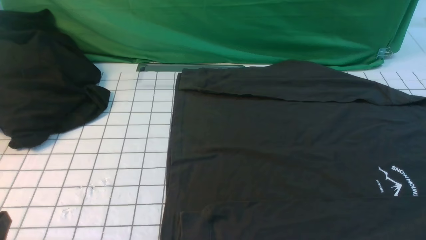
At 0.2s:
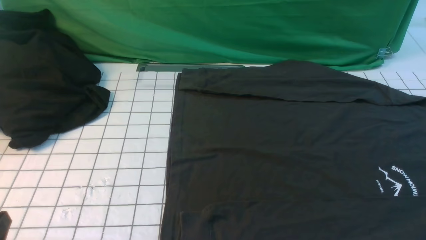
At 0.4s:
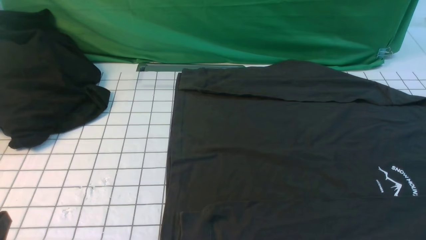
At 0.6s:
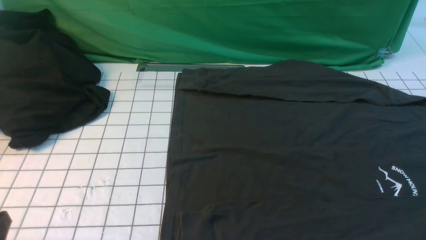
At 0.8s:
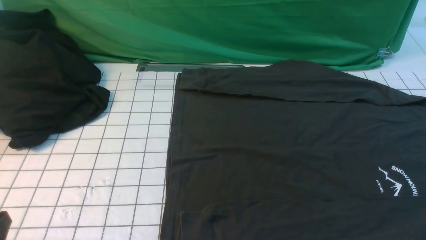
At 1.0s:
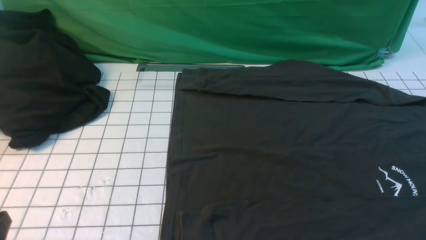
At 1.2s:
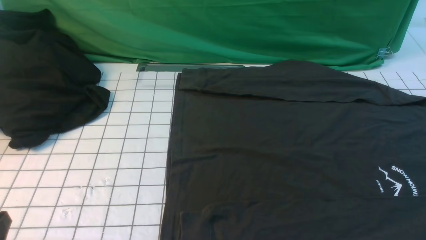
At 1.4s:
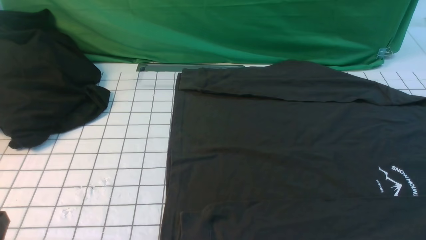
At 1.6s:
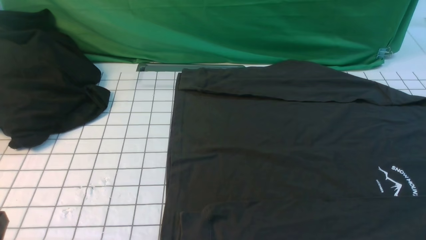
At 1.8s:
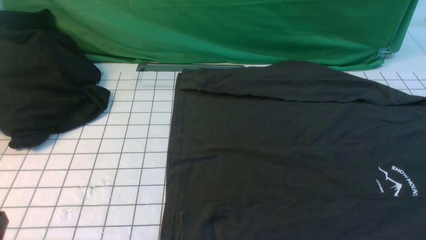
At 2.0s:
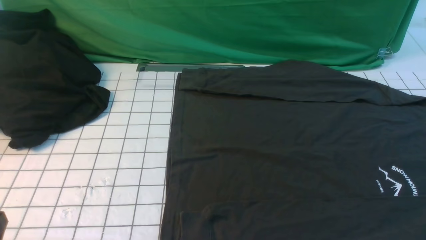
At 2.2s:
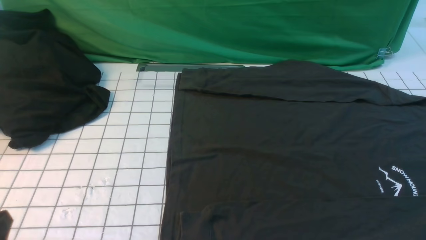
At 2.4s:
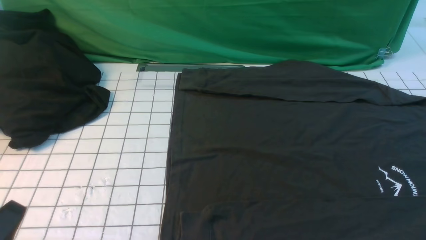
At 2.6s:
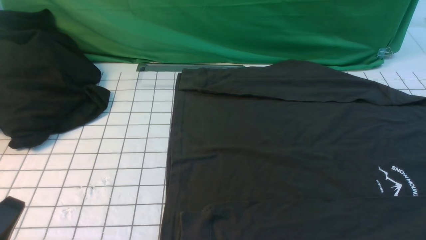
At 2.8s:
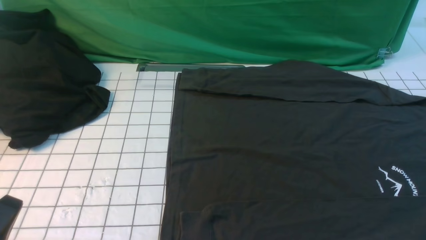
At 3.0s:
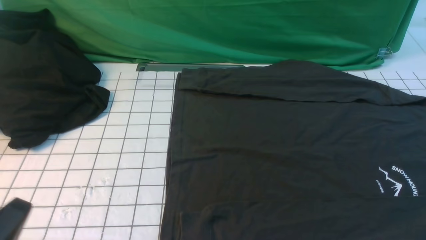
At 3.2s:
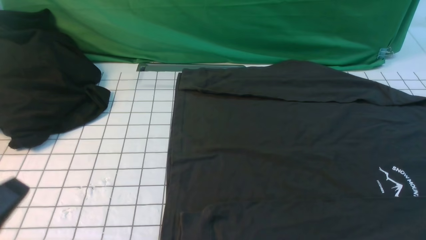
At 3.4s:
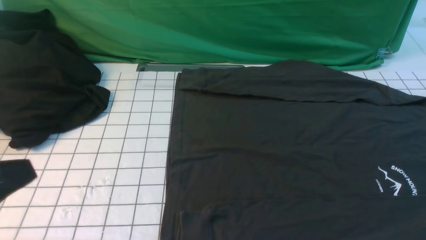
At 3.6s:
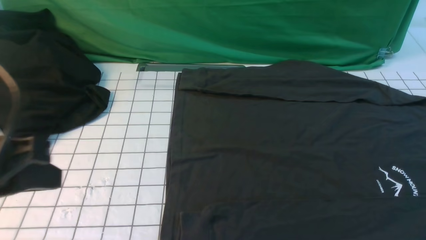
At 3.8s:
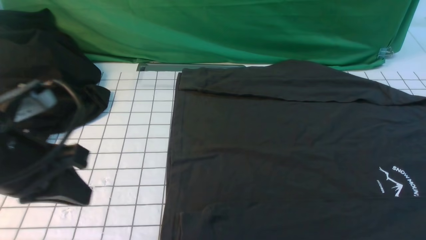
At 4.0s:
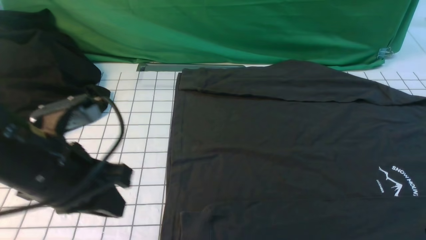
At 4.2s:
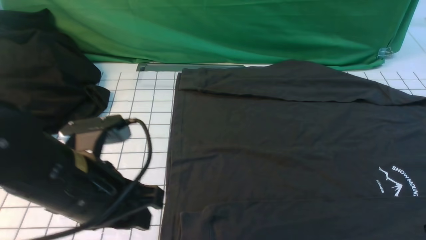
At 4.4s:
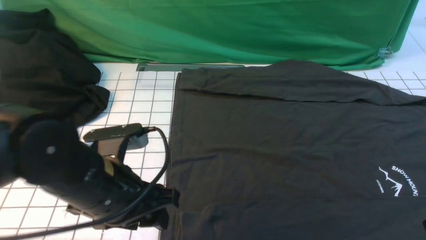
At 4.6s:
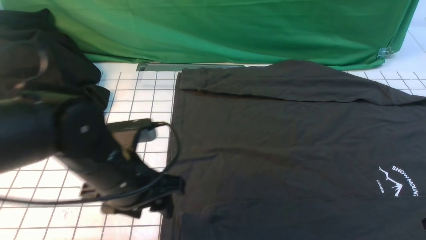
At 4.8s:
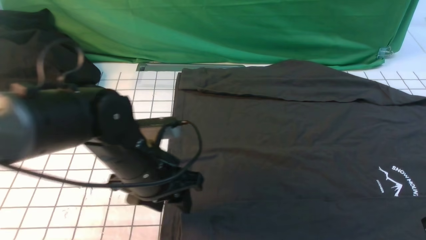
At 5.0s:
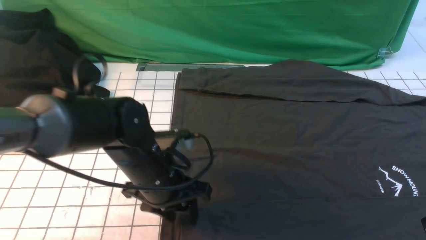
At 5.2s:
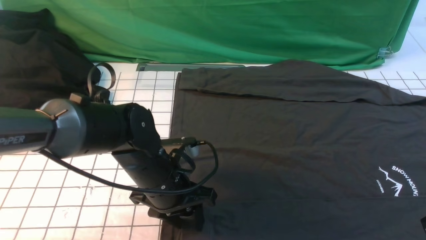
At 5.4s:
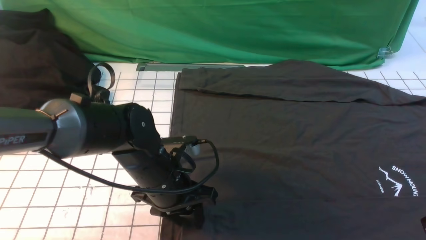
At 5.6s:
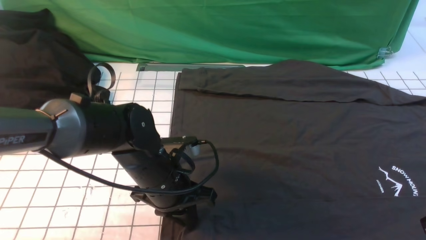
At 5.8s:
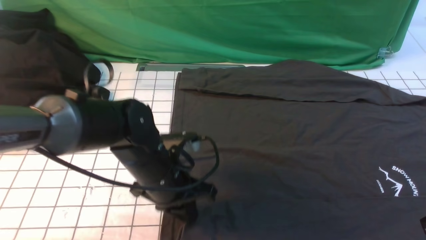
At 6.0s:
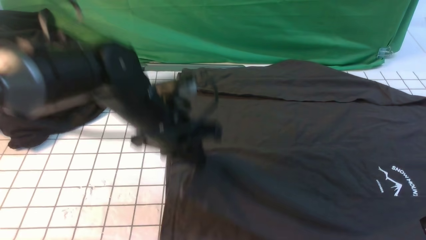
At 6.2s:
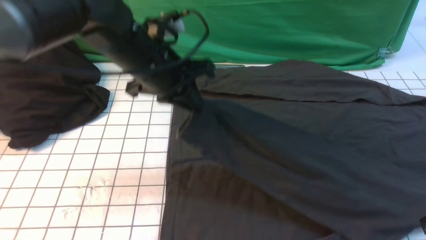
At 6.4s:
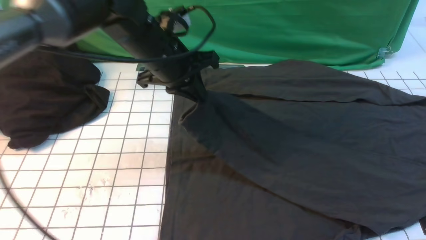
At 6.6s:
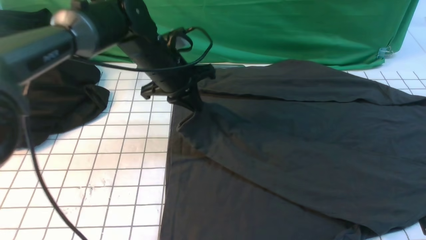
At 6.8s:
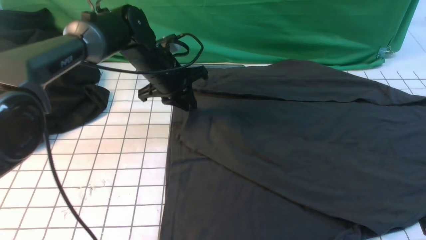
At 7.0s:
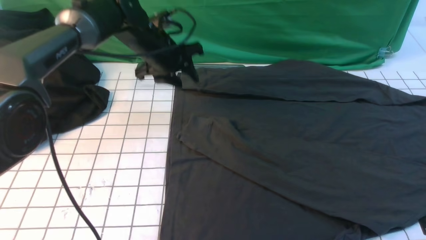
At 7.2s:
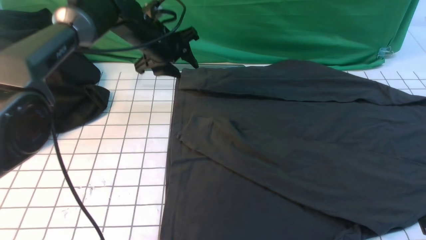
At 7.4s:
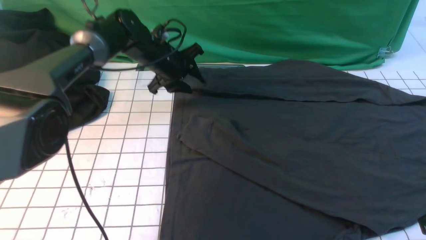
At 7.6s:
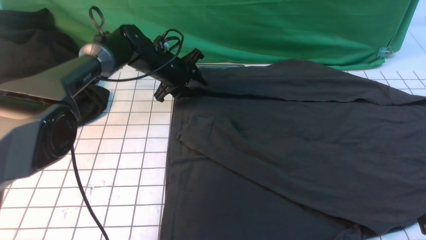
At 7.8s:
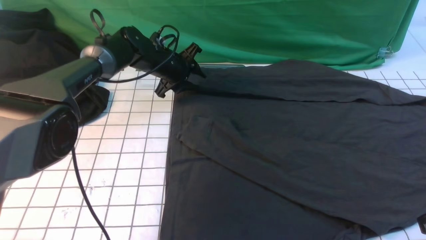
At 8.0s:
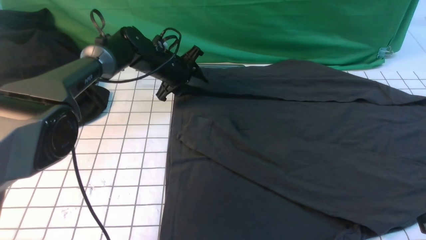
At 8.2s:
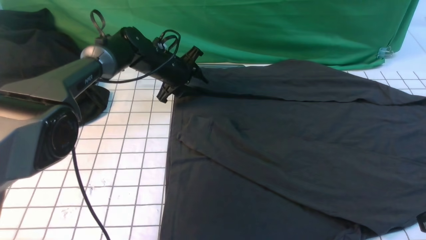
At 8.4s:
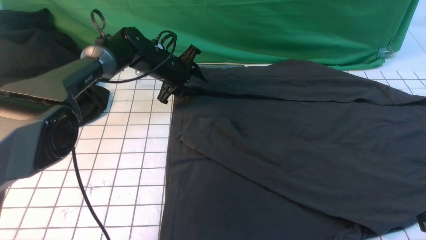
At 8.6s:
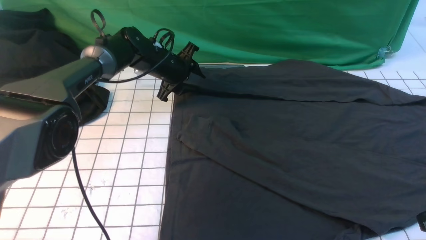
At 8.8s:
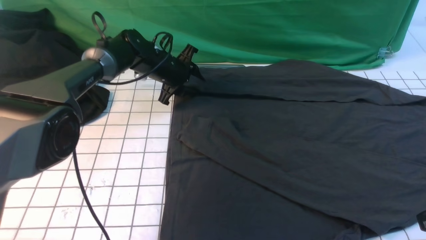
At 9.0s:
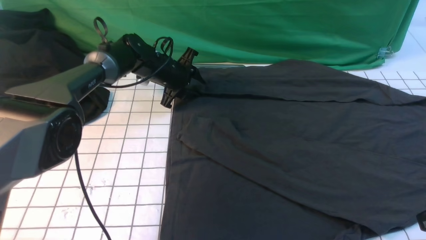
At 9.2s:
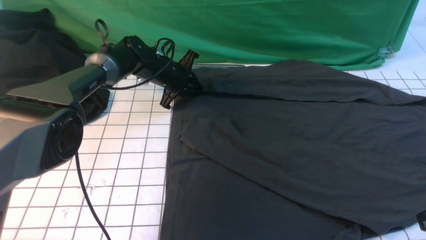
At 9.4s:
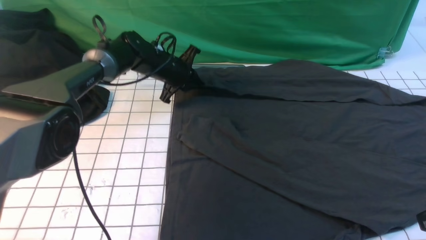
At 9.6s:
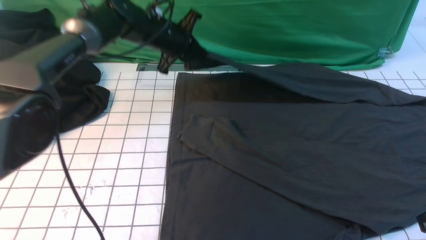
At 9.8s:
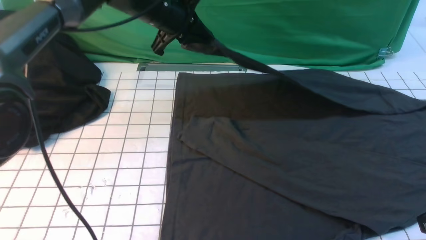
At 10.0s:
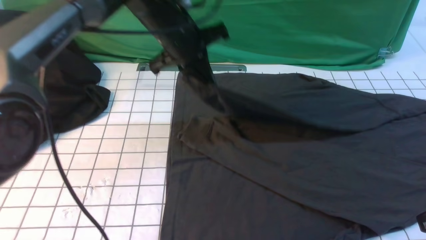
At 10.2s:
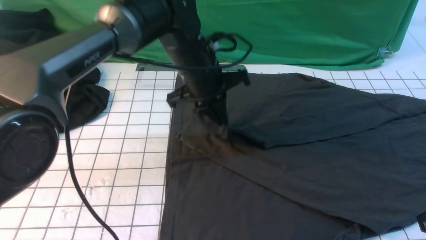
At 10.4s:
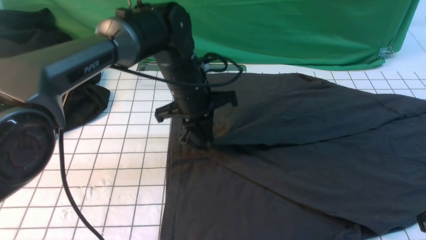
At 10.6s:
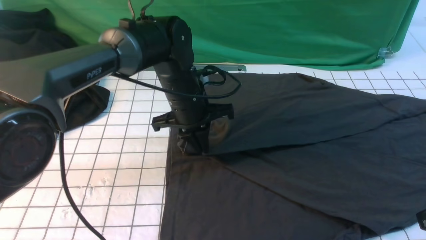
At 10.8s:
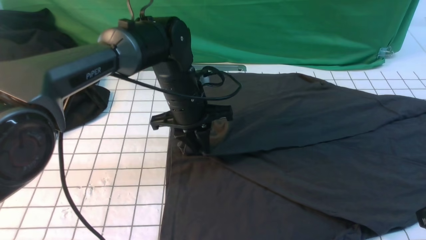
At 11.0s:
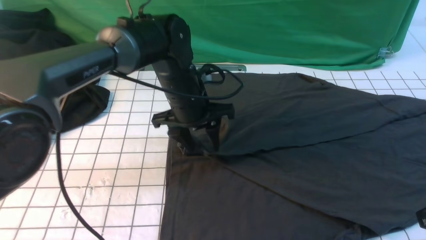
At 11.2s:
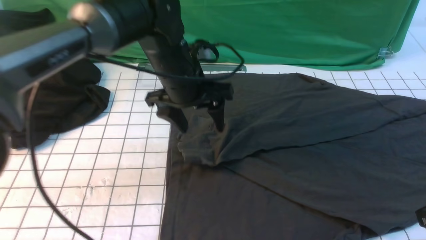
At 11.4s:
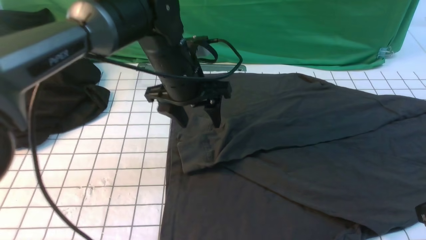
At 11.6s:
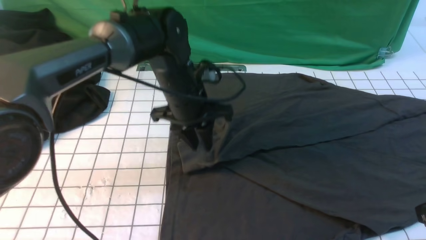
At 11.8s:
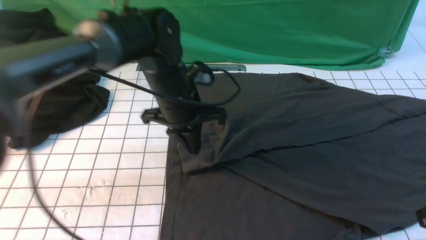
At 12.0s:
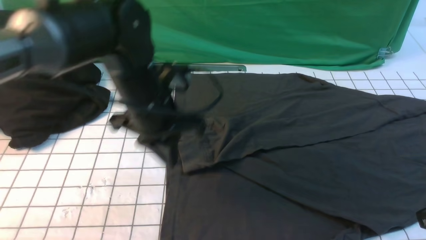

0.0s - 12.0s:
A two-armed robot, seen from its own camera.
Step, 0.0s - 5.6s: use the left arm to clamp the cuff closest to it.
Step, 5.8s - 6.8s: use the left arm to drag and place the cuff at the centered position on the left edge of the fabric.
Step, 7.0s - 9.2s: use the left arm to clamp the cuff farthest from it.
Step, 9.4s - 11.2s: use the left arm to drag and drop the cuff onto the cuff closest to the left arm.
0.0s - 1.6s: Both grippers stay put.
3.0s - 4.4s: The right gripper goes roughly 10 cm forward. The left gripper moves forward and to the right, approximately 20 cm, and opens up.
4.4s - 6.0s: The left gripper moves forward, approximately 10 cm, and closes.
6.0s - 7.6s: The left gripper is displaced forward by approximately 20 cm, and opens its fingers.
7.6s - 9.0s: The grippers stay close to where they were, moving slightly.
9.0s - 10.4s: The left gripper shifts some 15 cm backward, upward and to the right, and closes up.
10.4s - 12.0s: The left gripper travels backward by about 10 cm, and opens, then closes again.

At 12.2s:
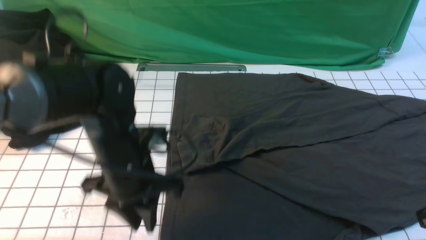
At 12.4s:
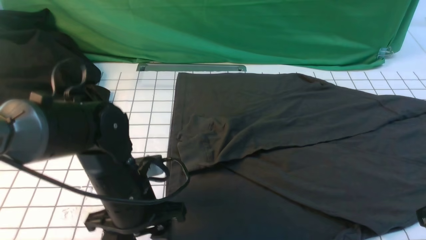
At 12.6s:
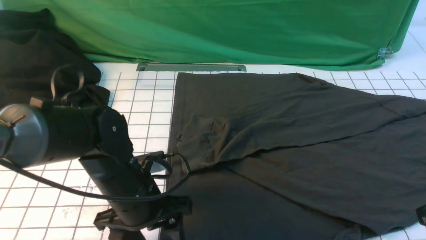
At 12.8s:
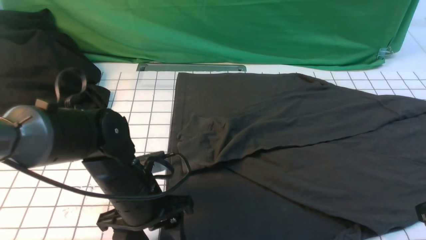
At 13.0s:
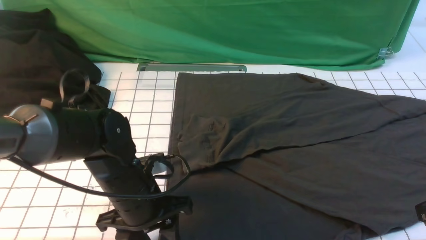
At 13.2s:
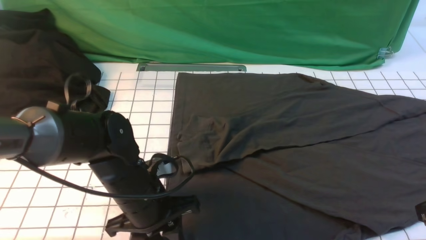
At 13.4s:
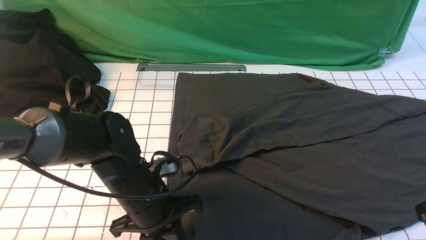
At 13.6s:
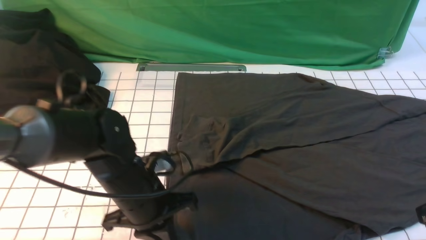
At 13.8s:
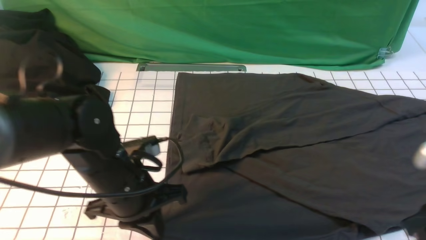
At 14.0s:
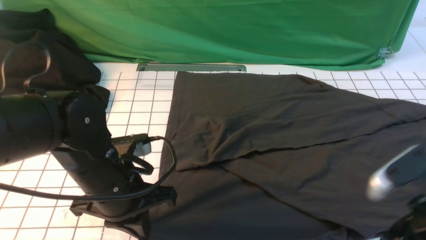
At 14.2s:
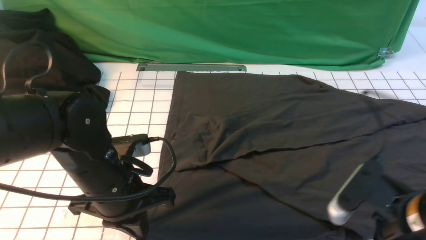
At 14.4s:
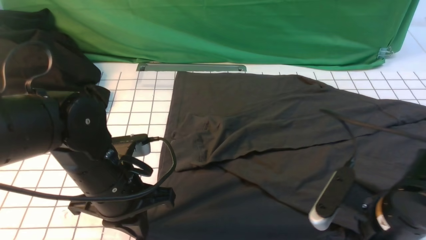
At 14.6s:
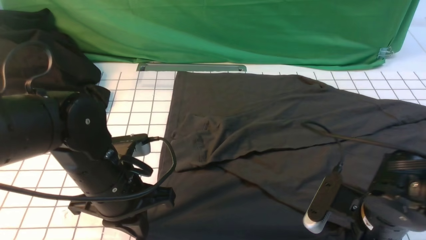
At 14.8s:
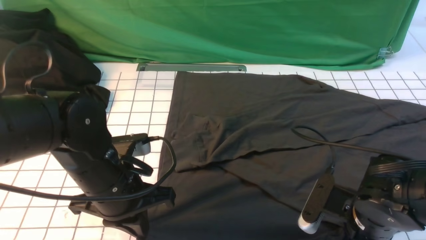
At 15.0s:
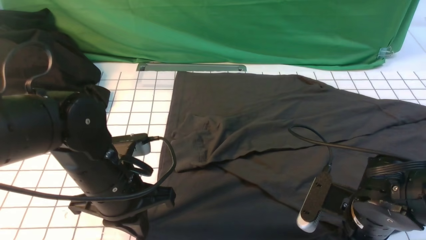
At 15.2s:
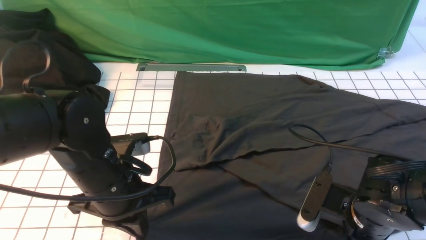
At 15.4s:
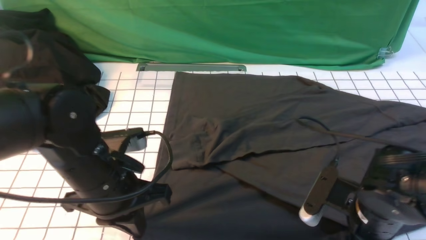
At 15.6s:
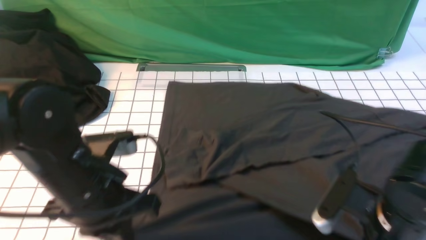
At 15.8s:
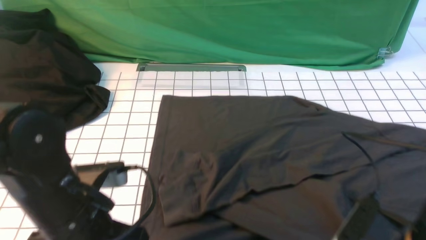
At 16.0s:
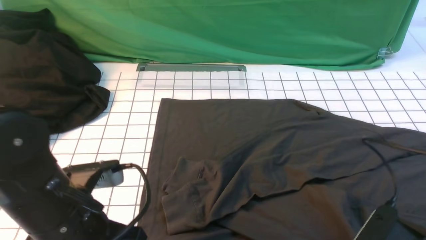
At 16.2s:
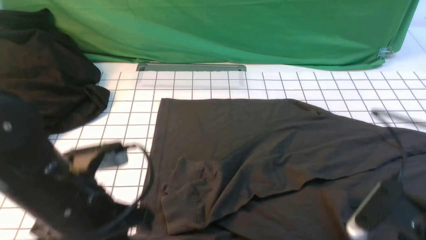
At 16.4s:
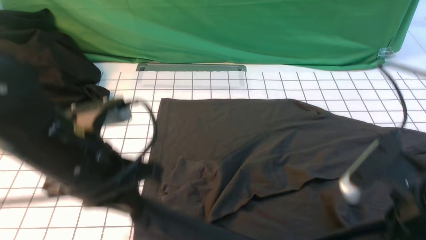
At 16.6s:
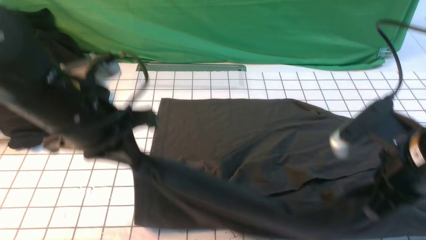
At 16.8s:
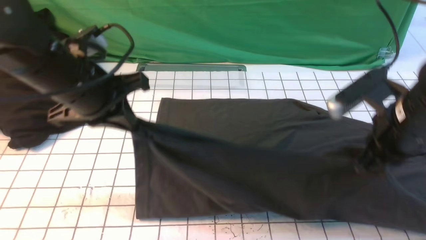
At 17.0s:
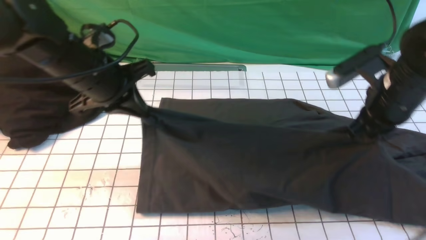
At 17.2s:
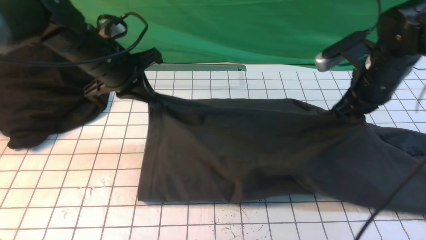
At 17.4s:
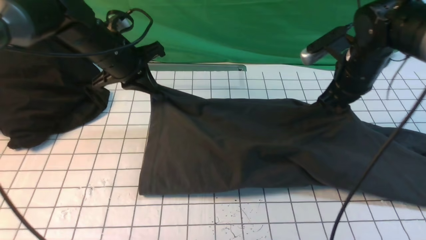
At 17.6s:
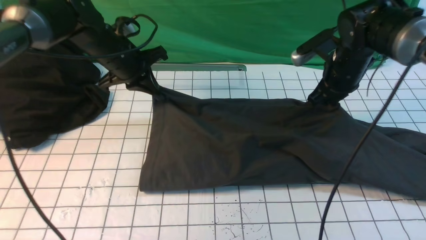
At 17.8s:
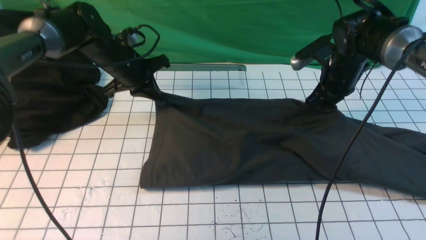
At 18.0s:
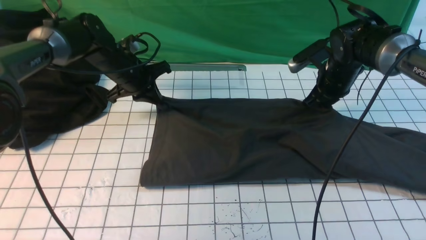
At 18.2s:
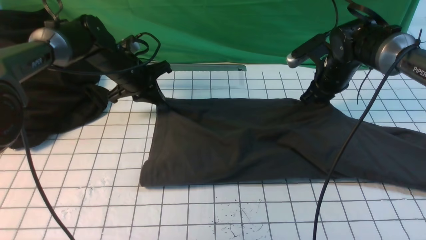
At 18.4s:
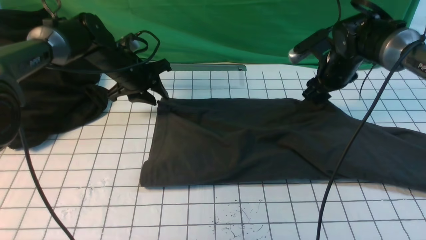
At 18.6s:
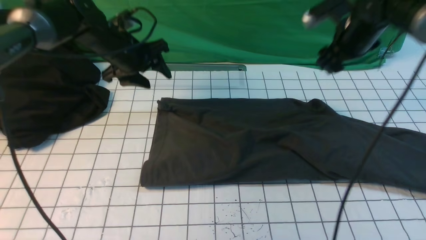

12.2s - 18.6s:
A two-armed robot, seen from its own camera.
Step, 12.2s - 15.2s: use both arms simultaneously to clamp the lower edge of the clothing fabric.
12.2s - 13.8s: The left gripper closes.
13.8s - 15.4s: The right gripper moves downward and to the left, roughly 10 cm, and closes.
15.4s - 17.0s: The left gripper heads forward, covering about 15 cm. The right gripper is displaced forward and upward by roughly 15 cm.
17.0s - 18.6s: Both grippers travel together forward, roughly 10 cm. The right gripper opens up; the left gripper opens its fingers.
